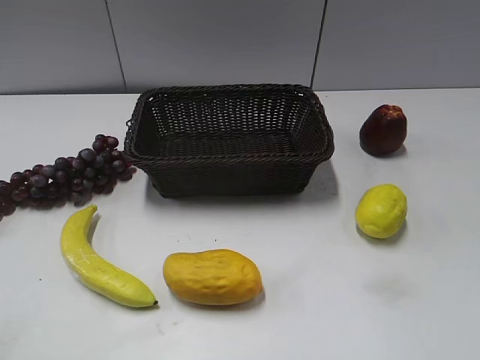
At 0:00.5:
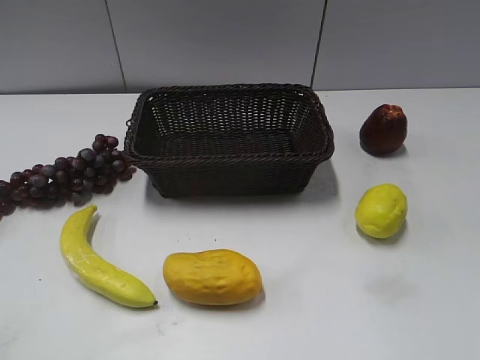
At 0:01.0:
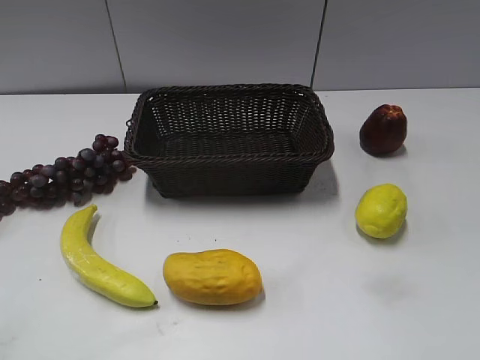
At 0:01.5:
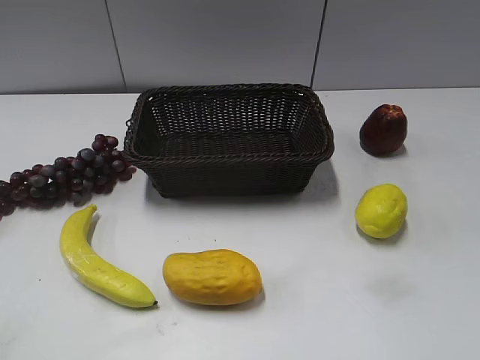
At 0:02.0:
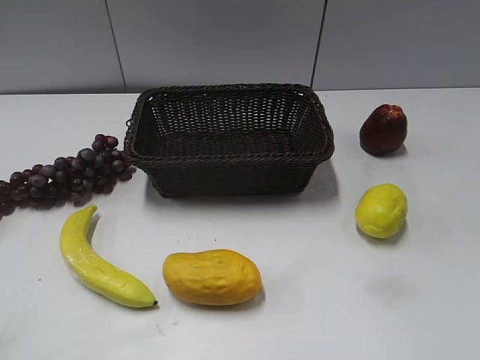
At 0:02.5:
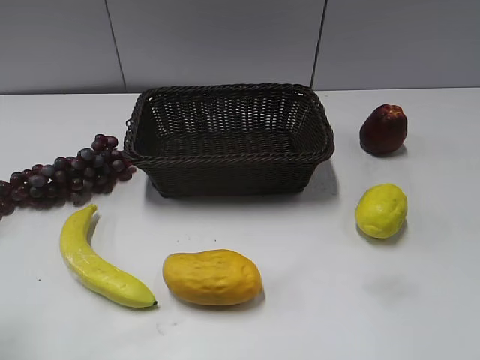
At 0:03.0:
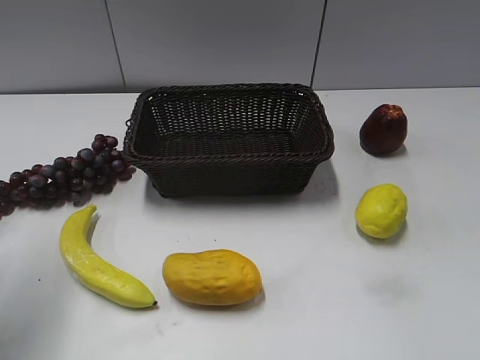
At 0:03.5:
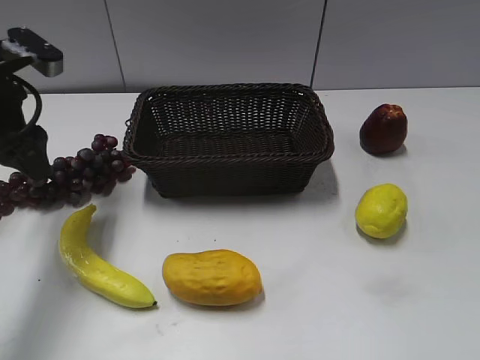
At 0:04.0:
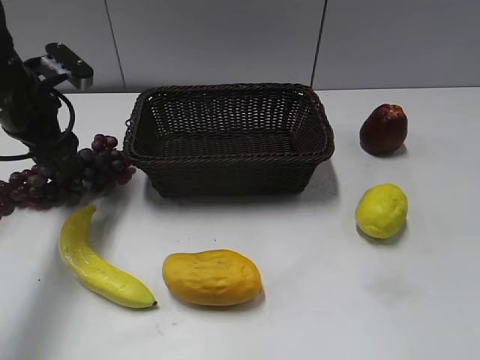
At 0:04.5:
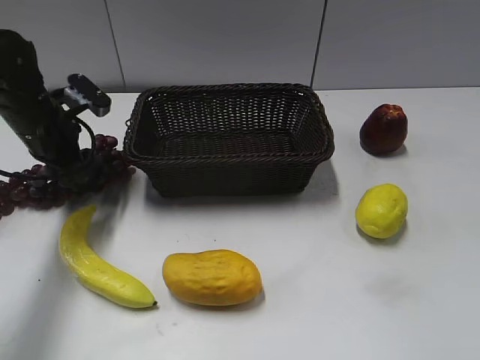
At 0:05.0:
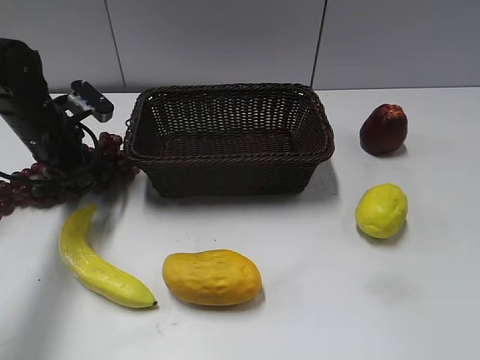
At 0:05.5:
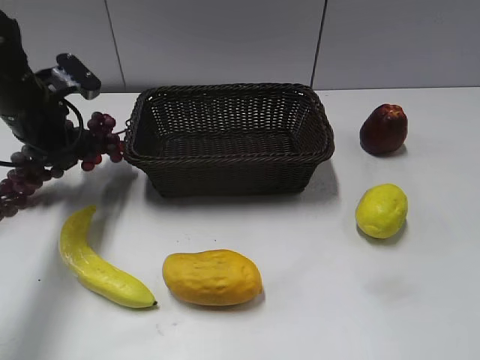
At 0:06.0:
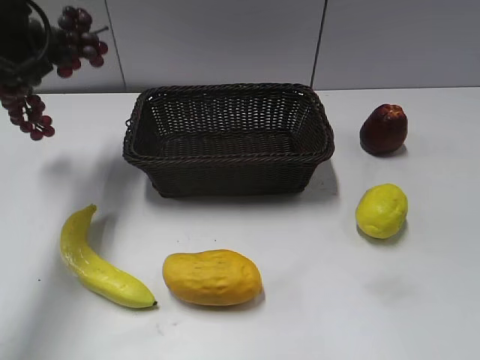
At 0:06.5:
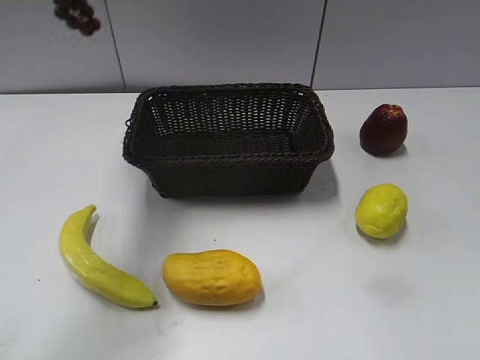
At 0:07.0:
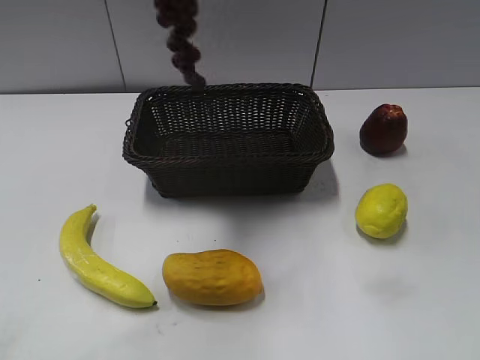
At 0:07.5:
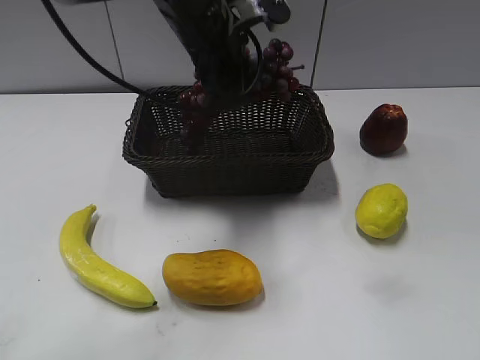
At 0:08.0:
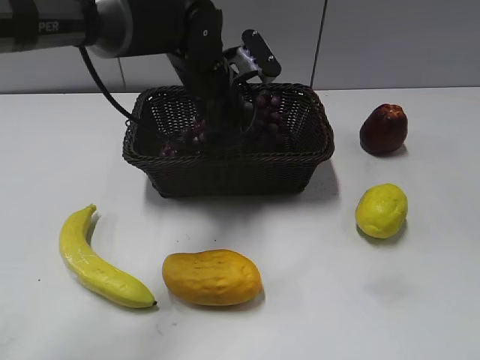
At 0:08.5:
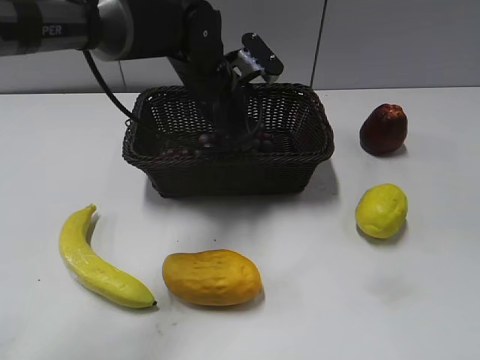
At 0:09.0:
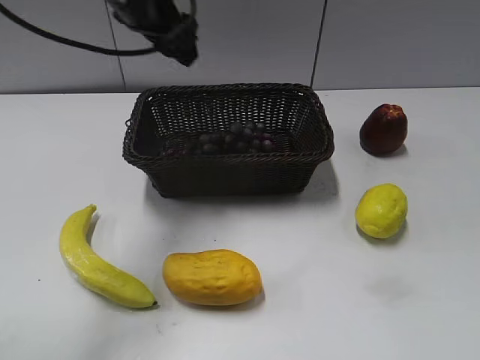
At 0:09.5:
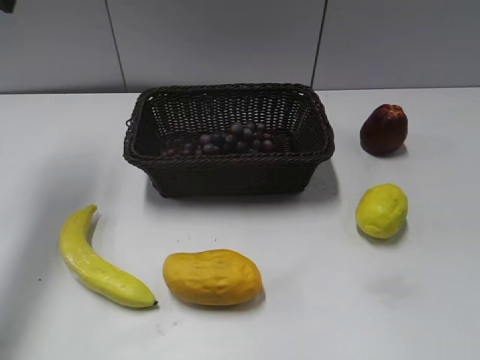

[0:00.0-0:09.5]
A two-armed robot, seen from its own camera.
Step, 0:03.5 to 0:05.0: Grasp the grape with left gripper.
Step, 0:05.5 to 0:08.0: Place the grape in the basket with left gripper.
0:02.0 to 0:04.0: The left gripper moves forward, approximately 35 cm.
0:04.0 to 0:05.5: The left gripper closes up.
0:05.5 to 0:07.5: The left gripper is displaced to the right by approximately 20 cm, and moves some 25 cm upward and comes back.
0:07.5 to 0:09.5: The left gripper travels to the left and upward by some 30 cm, and opens its fingers.

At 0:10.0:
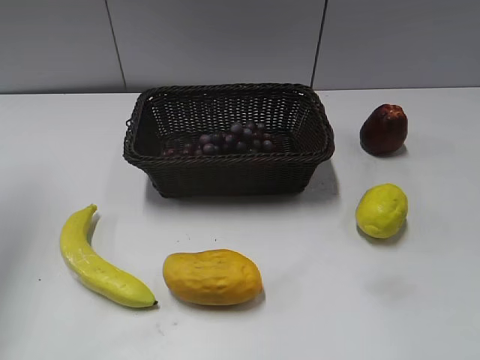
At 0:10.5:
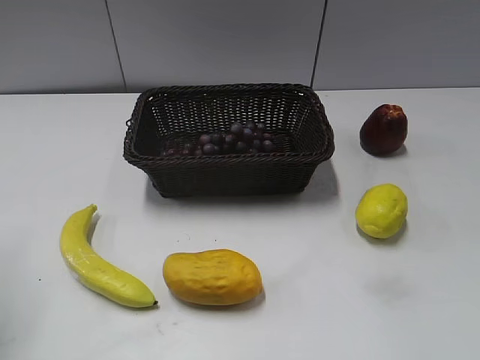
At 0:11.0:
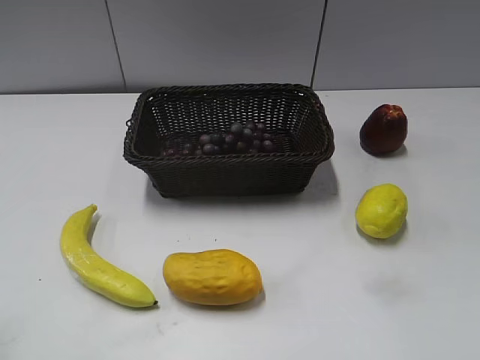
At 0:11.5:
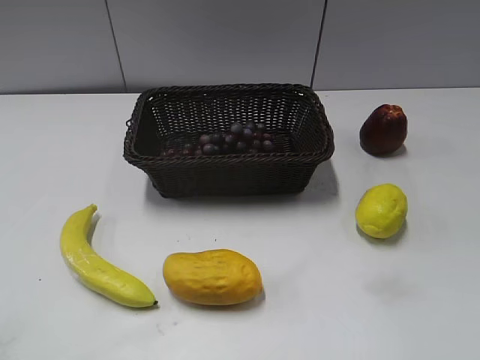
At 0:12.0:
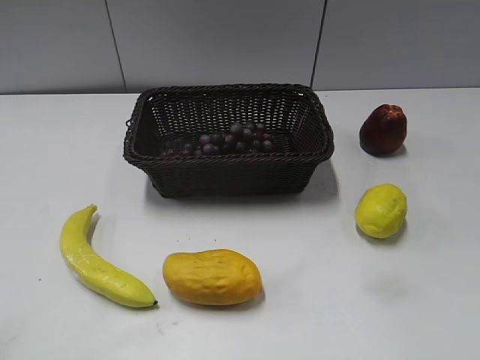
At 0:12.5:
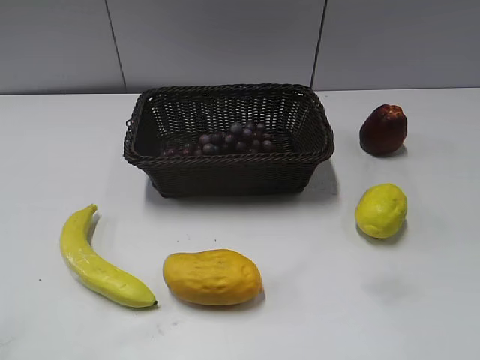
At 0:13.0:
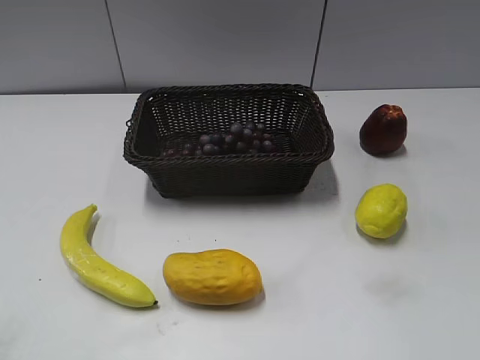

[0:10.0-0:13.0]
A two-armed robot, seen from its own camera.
0:10.0 to 0:11.5: The left gripper heads backward, covering about 30 cm.

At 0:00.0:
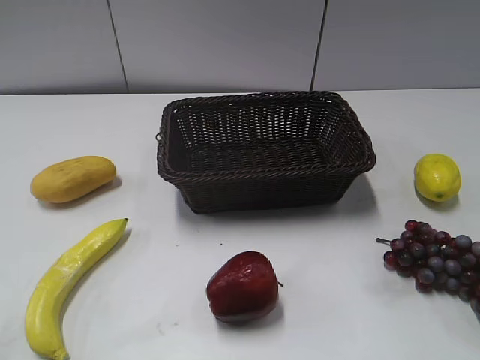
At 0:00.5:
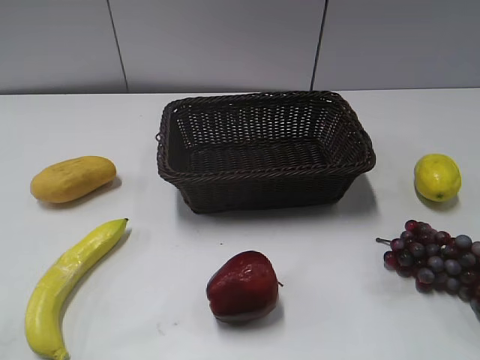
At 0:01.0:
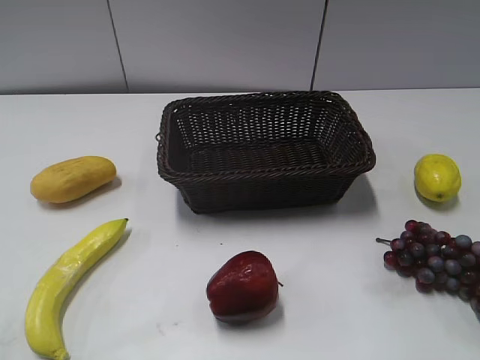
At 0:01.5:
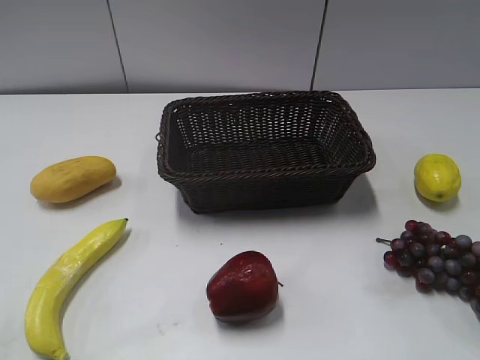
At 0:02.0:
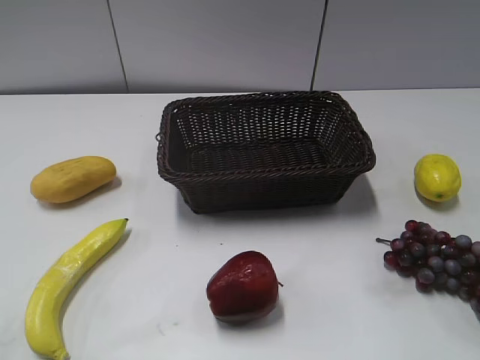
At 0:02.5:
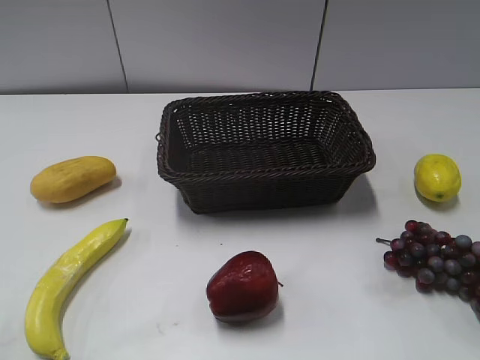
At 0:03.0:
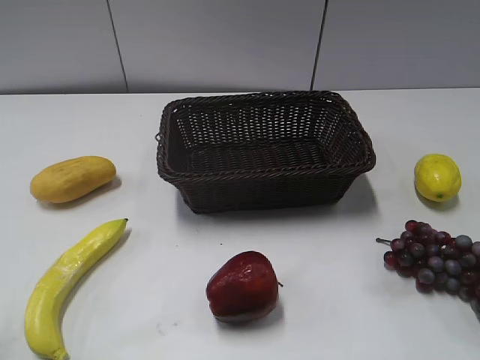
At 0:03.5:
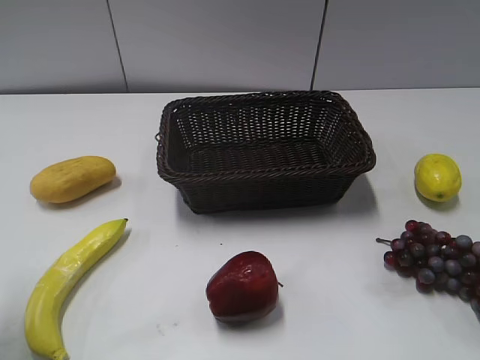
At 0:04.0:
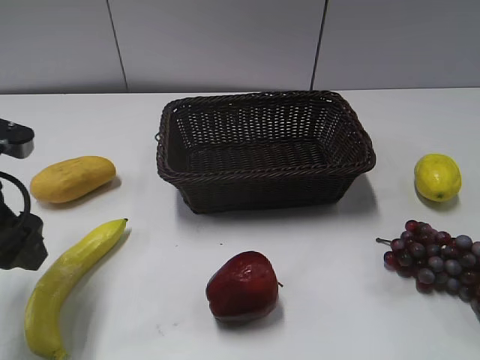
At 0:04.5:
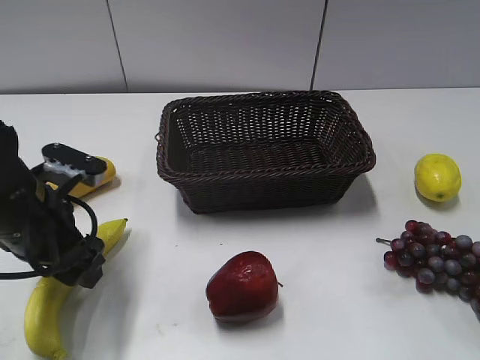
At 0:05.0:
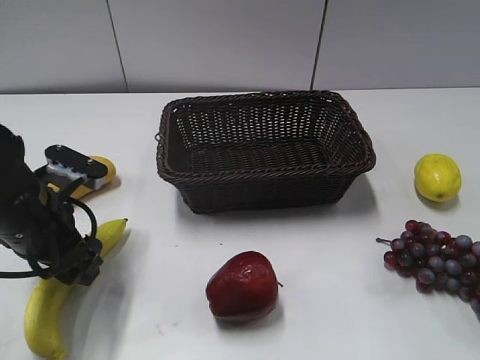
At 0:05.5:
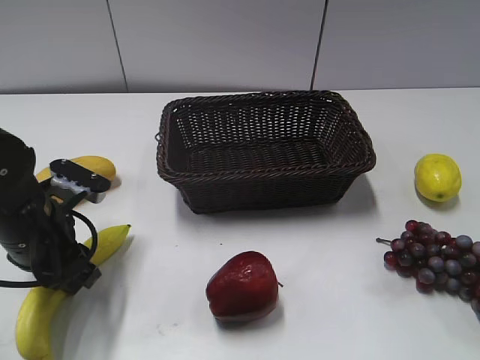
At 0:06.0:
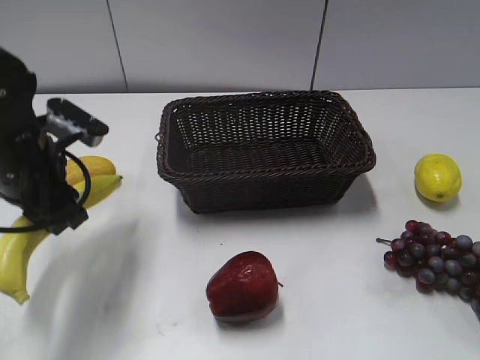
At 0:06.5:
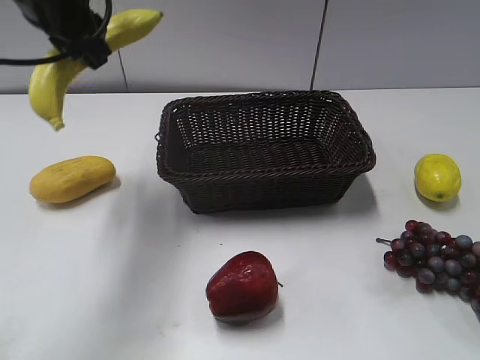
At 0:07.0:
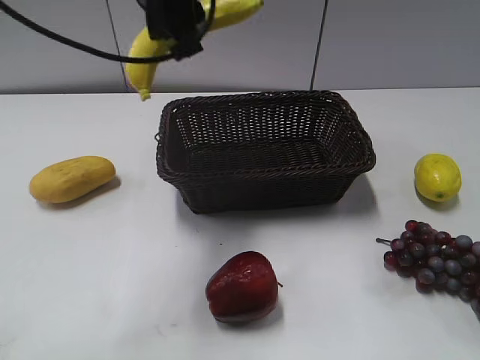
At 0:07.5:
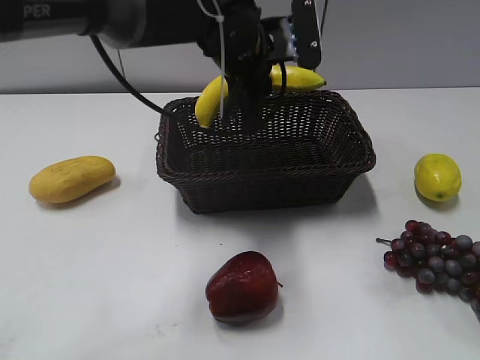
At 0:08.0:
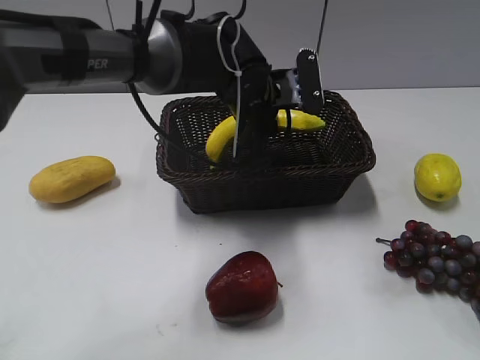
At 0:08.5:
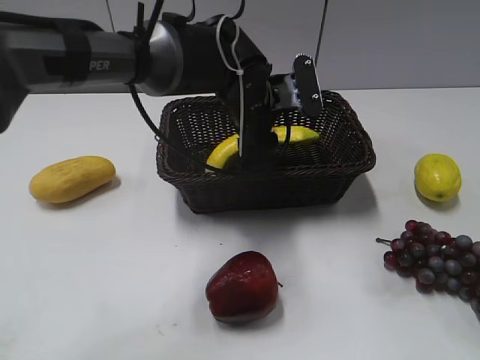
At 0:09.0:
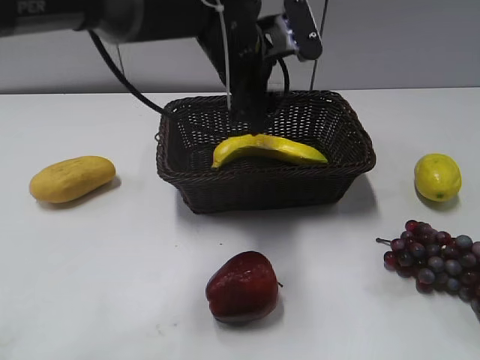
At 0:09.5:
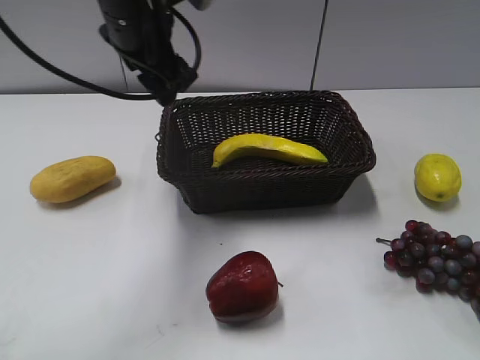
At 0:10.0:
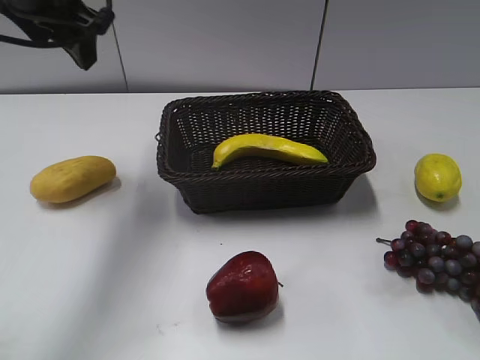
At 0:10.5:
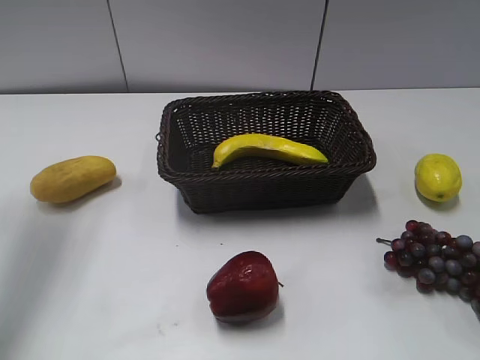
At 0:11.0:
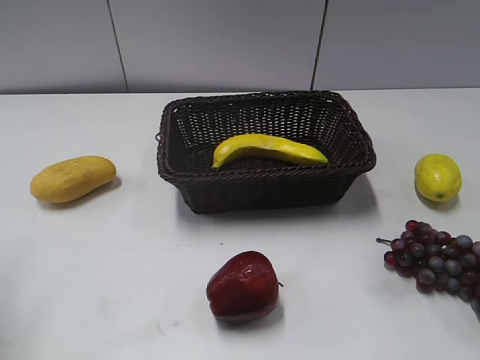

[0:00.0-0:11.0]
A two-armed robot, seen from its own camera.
Step, 0:03.5 to 0:05.5: Grasp the banana with left gripper.
Step, 0:06.5 to 0:08.5: Place the banana in the basket with left gripper.
0:00.0 to 0:02.0: Neither gripper changes place.
0:02.0 to 0:03.5: The left gripper goes about 20 cm forward, and opens.
0:03.5 to 0:05.5: The left gripper is displaced downward, forward and to the right by about 10 cm, and closes its fingers.
0:05.5 to 0:07.5: The left gripper heads to the right and forward, covering roughly 25 cm.
0:07.5 to 0:09.0: The left gripper travels upward and to the left by some 10 cm, and opens its fingers.
0:09.0 to 0:11.0: The left gripper moves to the left and backward, about 35 cm.

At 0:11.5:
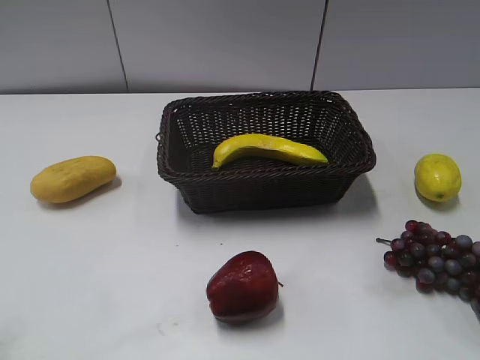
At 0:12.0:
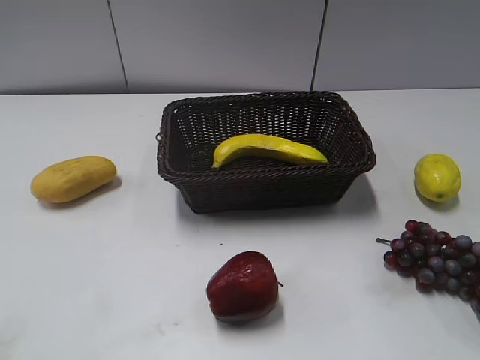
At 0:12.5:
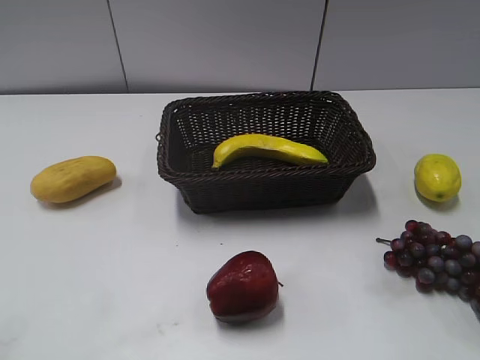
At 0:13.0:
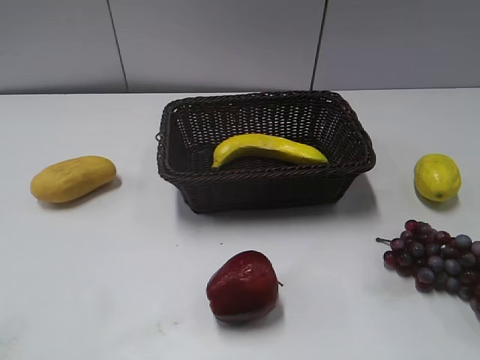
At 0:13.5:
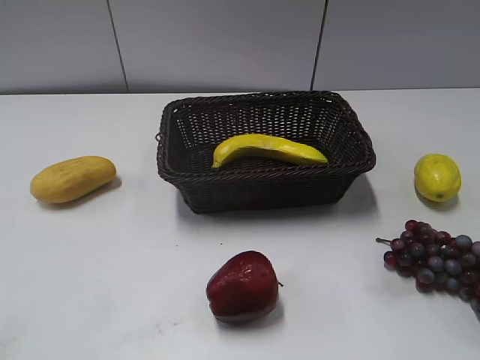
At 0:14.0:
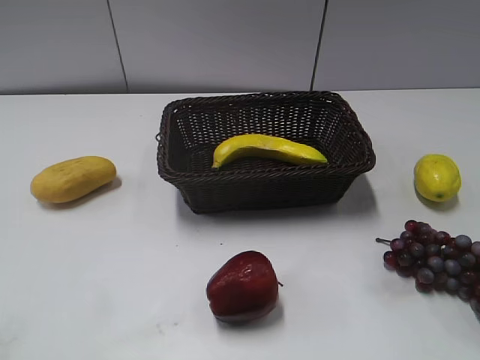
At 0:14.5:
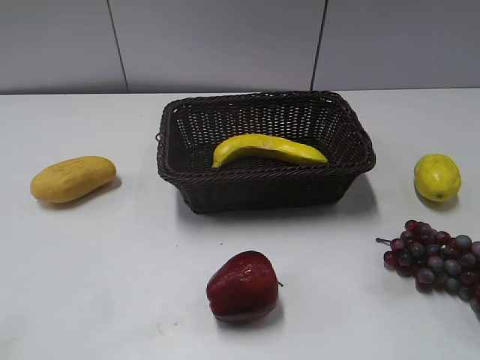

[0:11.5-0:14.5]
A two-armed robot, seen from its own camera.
0:13.0 to 0:14.5: Neither gripper changes place.
